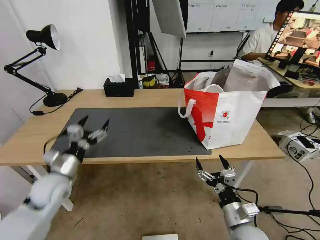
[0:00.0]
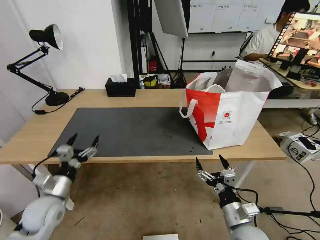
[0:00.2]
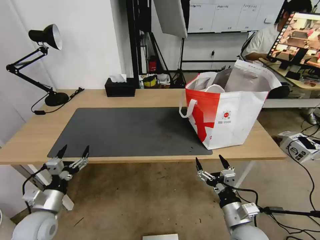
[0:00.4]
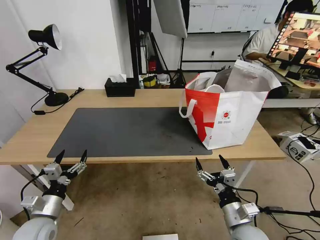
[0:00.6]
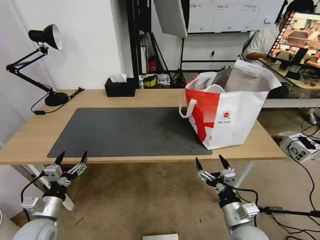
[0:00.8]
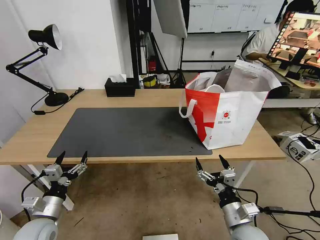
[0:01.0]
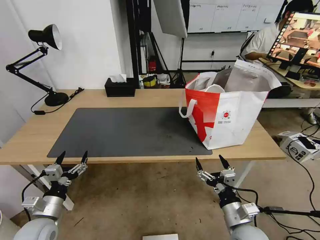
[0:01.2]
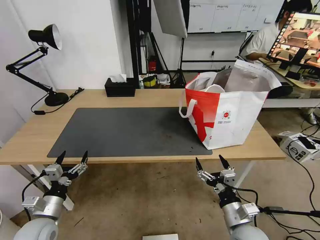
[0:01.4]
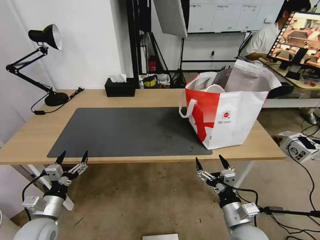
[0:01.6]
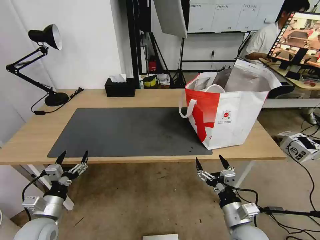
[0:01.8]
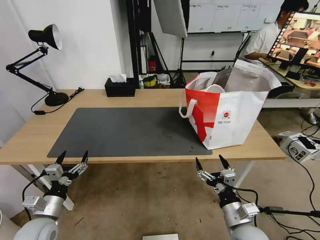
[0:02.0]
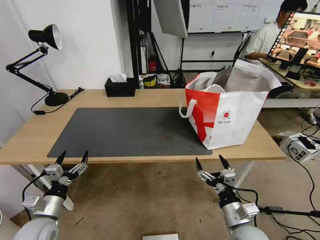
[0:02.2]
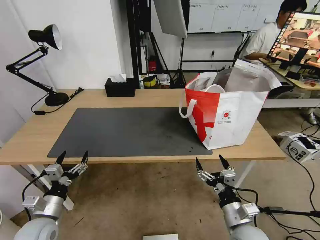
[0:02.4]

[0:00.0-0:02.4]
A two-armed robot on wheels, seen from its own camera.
Task of the whole recording: Pick up the trash from the table and place it into the takeout bag.
0:00.0 to 0:01.2: The left gripper travels backward and downward by roughly 10 cm.
0:01.2 to 0:02.4: Both grippers stay put.
